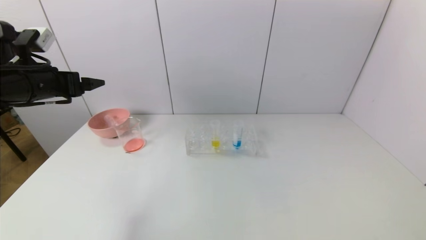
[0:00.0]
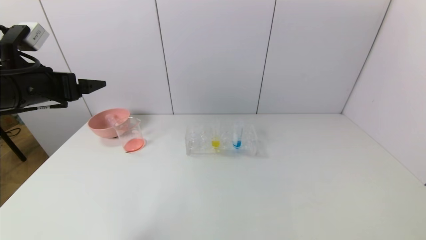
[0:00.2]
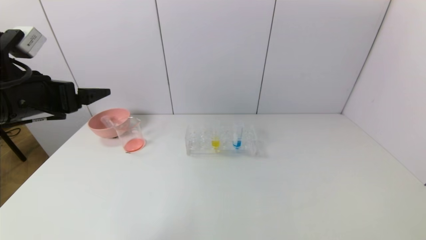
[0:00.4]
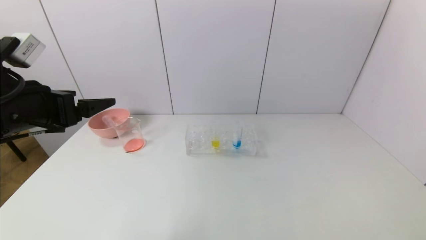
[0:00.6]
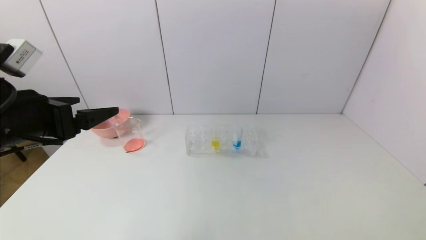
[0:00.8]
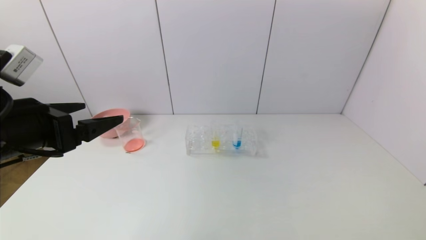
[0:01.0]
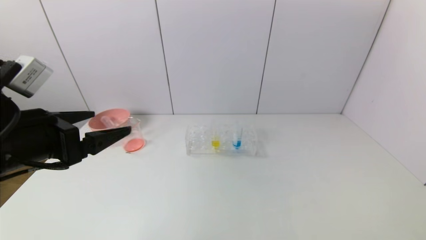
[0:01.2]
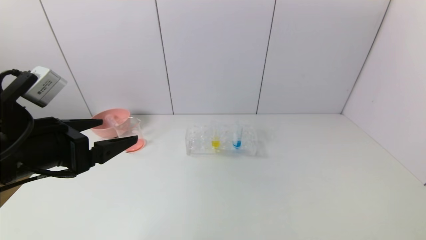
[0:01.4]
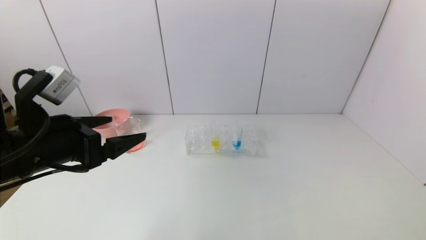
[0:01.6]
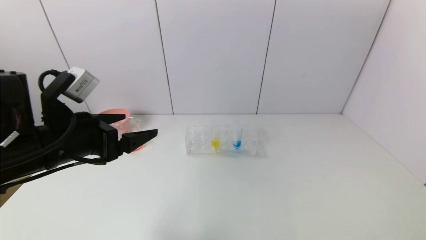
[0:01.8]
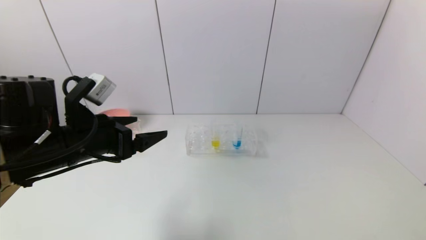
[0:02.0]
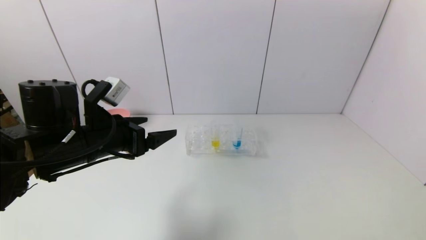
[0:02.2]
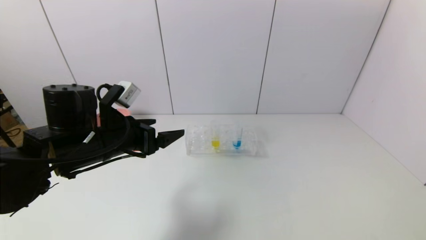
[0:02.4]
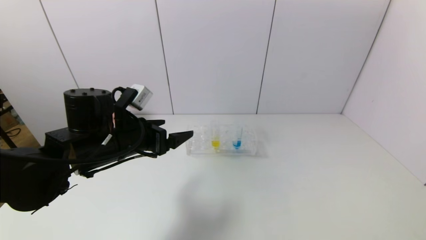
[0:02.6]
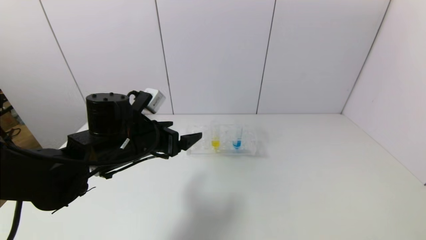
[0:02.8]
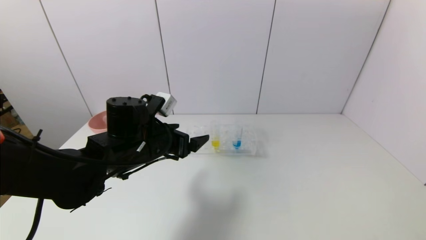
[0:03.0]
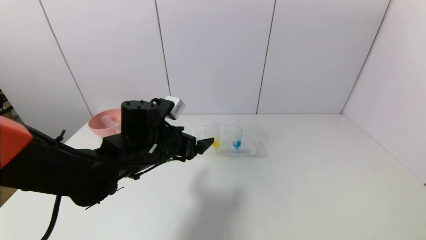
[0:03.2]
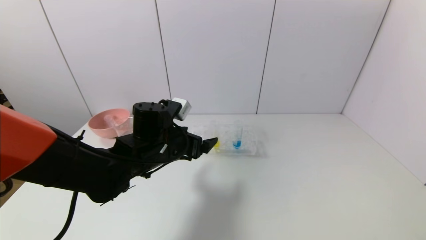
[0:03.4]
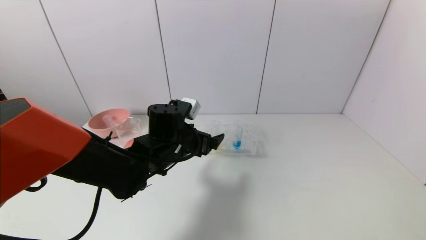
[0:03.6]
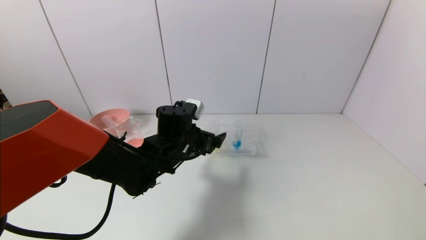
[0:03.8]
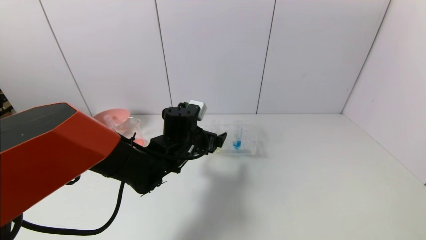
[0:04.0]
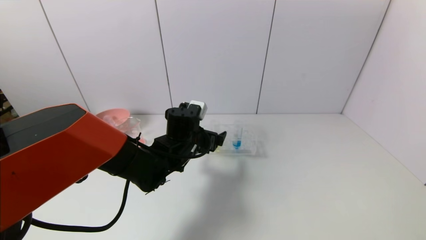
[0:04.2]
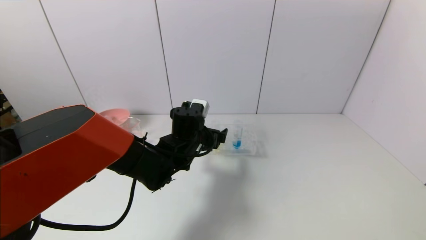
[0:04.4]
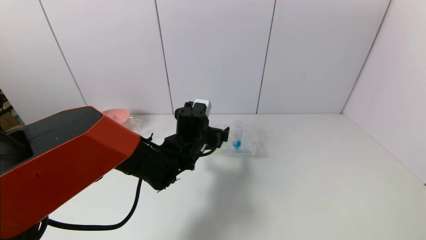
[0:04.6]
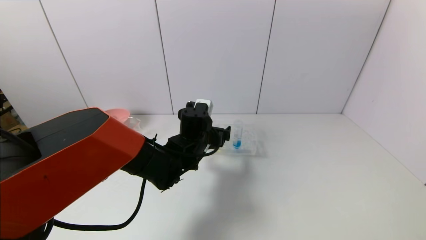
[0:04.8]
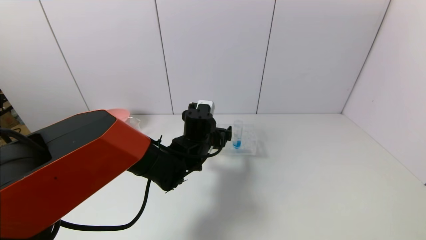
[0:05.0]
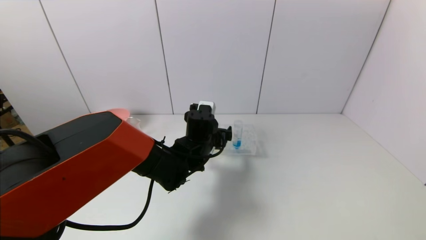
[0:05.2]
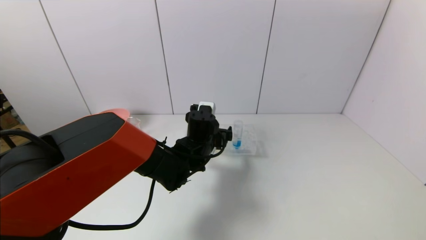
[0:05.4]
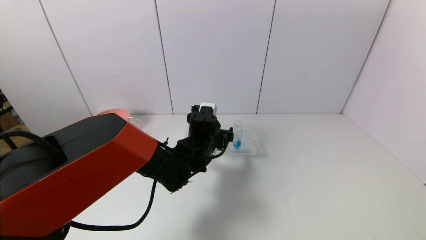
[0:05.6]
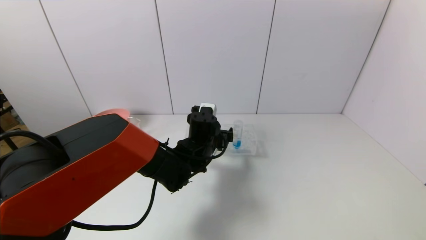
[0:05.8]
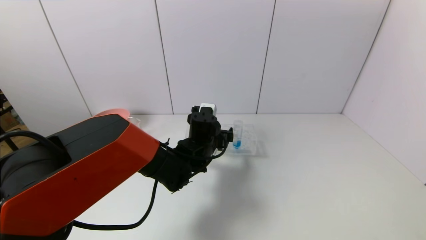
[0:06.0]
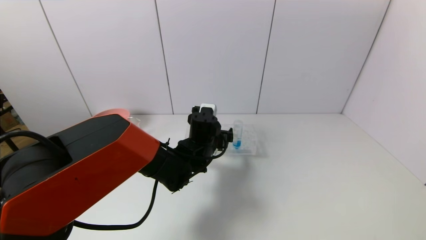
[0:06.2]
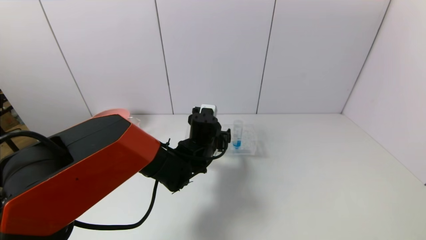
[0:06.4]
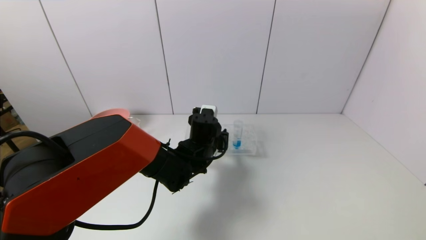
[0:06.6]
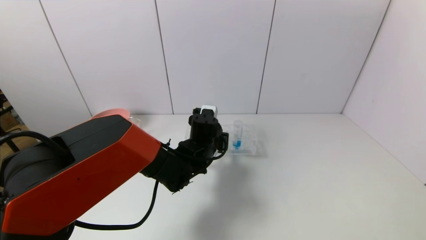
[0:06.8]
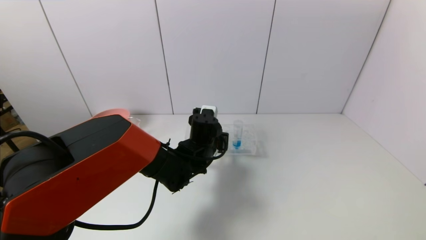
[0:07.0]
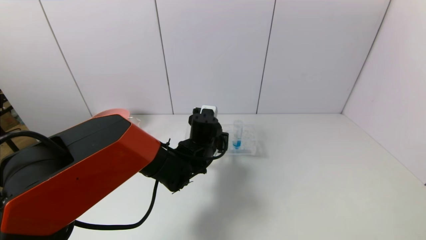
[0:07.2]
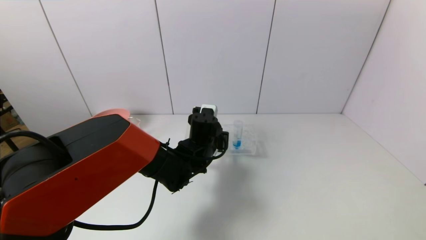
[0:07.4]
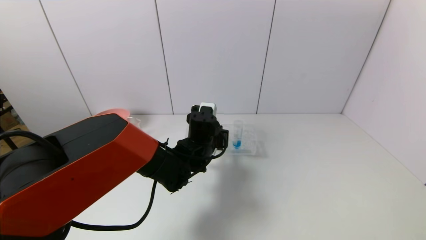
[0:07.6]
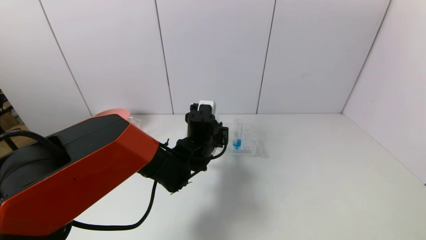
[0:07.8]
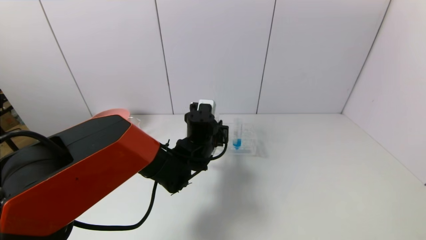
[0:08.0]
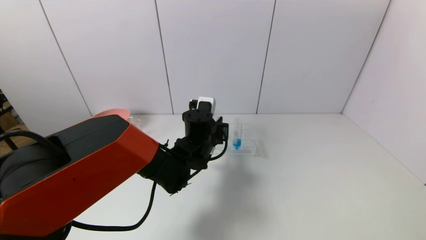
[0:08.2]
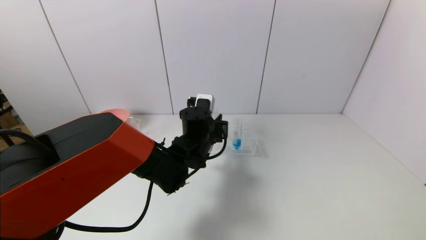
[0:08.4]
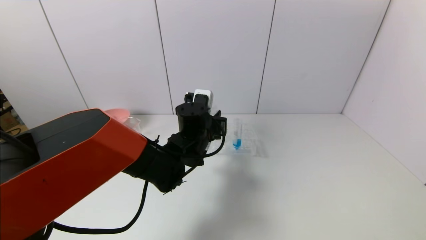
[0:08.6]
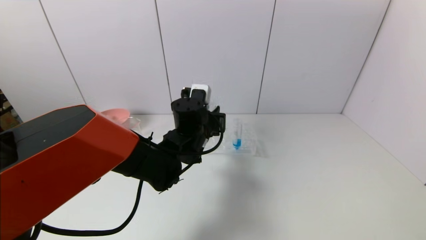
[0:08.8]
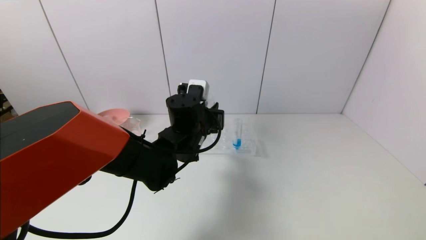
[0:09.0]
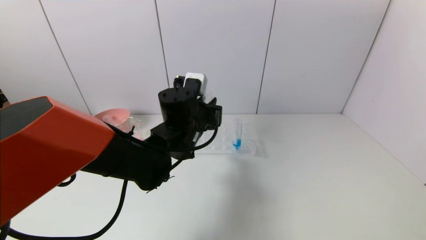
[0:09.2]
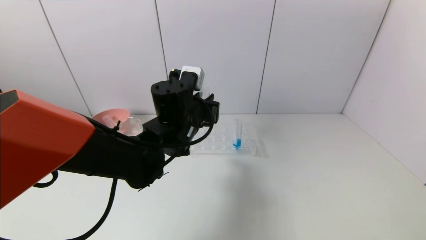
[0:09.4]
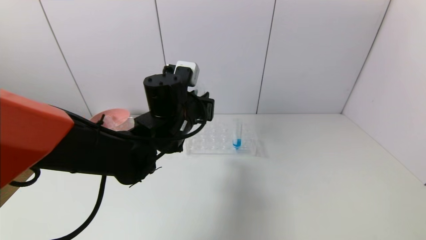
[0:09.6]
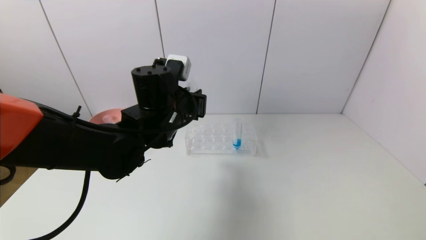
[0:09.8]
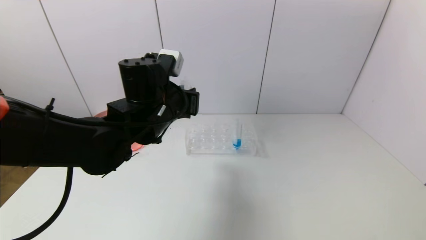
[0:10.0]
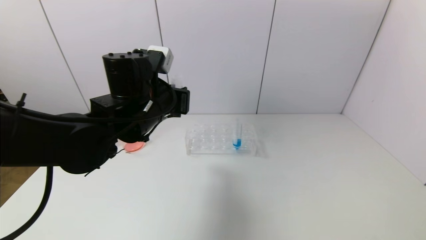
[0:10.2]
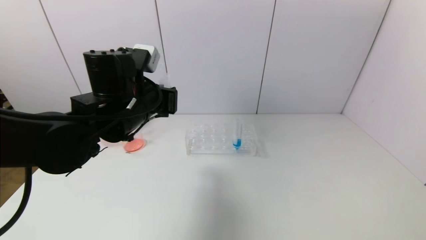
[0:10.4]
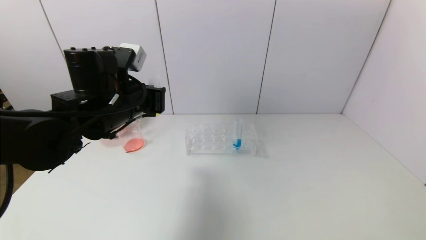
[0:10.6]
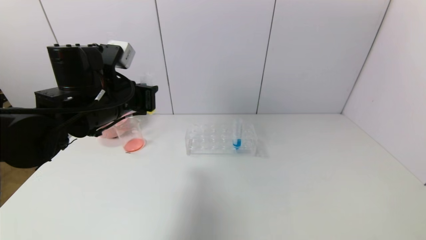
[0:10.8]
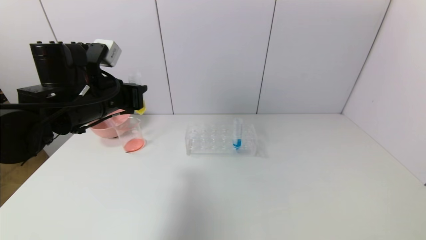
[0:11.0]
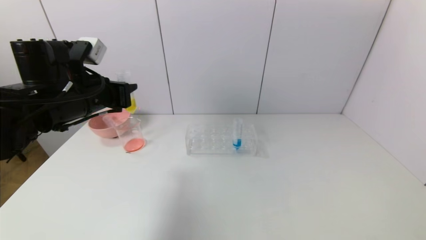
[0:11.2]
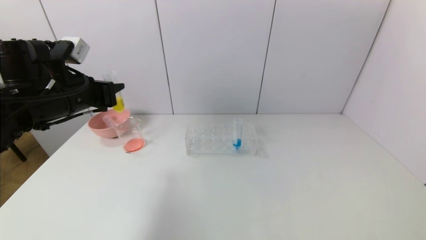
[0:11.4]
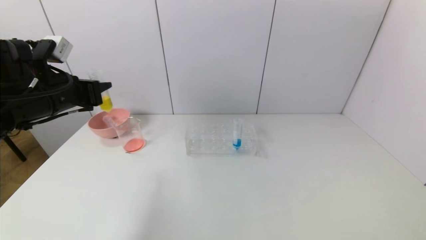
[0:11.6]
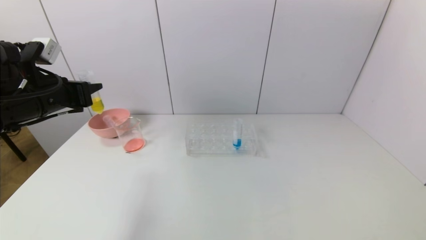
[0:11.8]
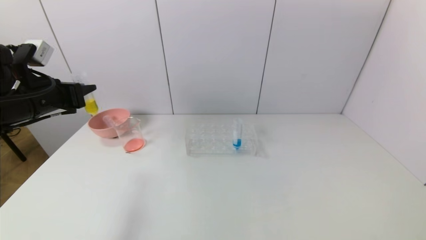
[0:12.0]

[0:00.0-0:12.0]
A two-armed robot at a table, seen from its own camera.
Task of the whole recording: pick up the test tube with yellow pigment and the test tube with red pigment by grippers and pour them into the beaker.
Step, 0:00.0 to 0:07.2: Grasp the yellow reagent with the left gripper.
0:00.0 to 0:01.6: The left gripper is displaced backward and to the right by approximately 15 cm.
0:01.6 to 0:03.0: The left gripper moves to the right, forward and downward, approximately 15 cm.
0:03.0 to 0:04.4: The left gripper heads to the right and forward, covering about 10 cm.
0:04.4 to 0:06.0: There are only small adjustments of the grippers.
0:06.0 to 0:07.6: The left gripper closes up.
0:07.6 to 0:09.0: The left gripper goes approximately 5 cm upward.
0:09.0 to 0:10.4: The left gripper moves to the left and upward, about 15 cm.
0:10.4 to 0:12.0: The left gripper travels to the left by some 20 cm.

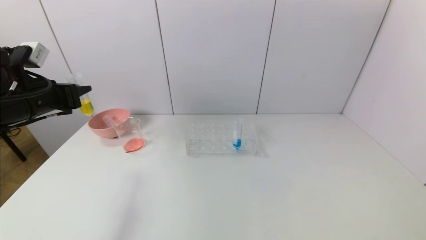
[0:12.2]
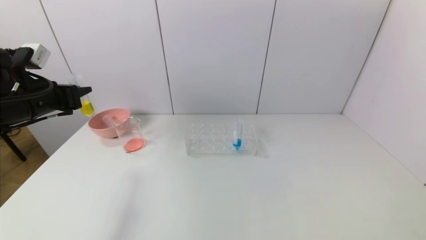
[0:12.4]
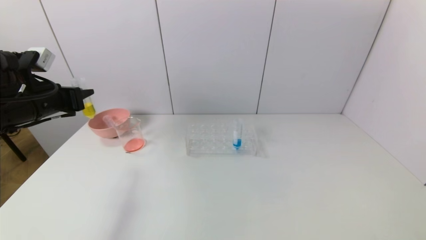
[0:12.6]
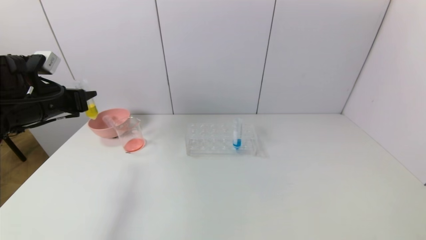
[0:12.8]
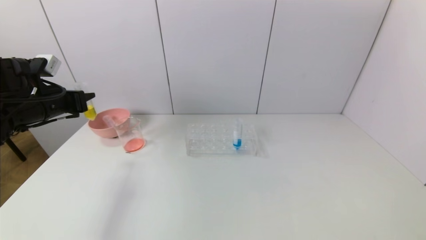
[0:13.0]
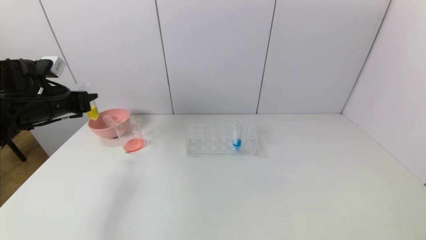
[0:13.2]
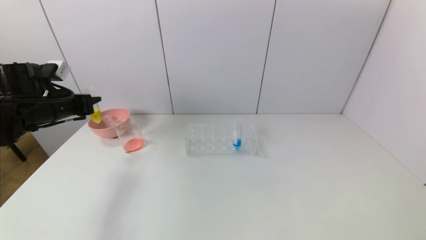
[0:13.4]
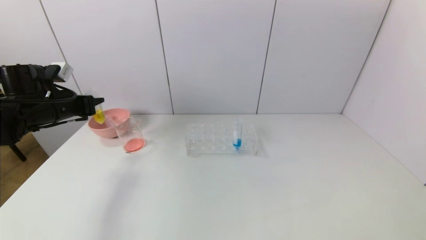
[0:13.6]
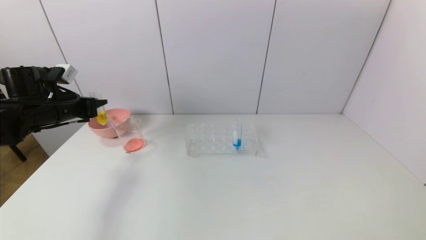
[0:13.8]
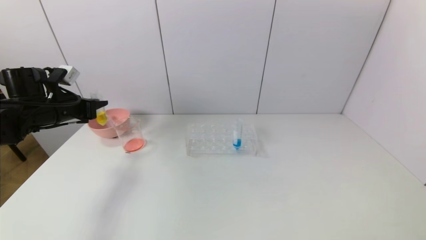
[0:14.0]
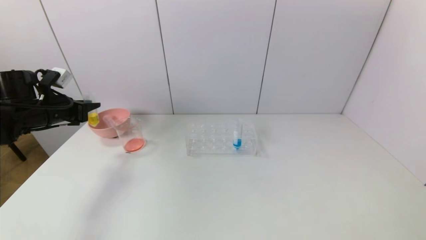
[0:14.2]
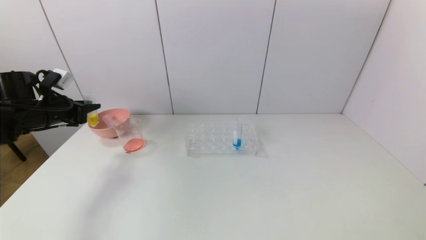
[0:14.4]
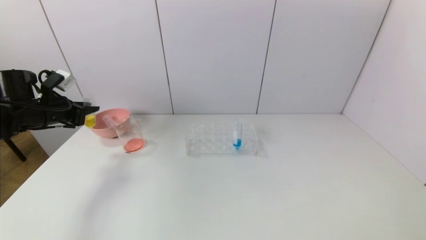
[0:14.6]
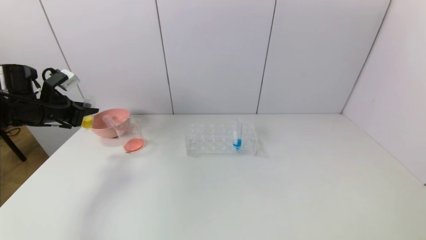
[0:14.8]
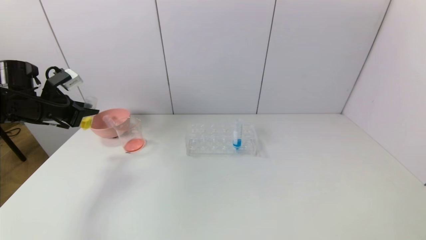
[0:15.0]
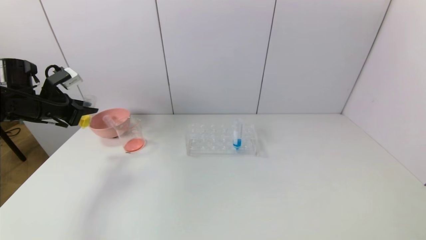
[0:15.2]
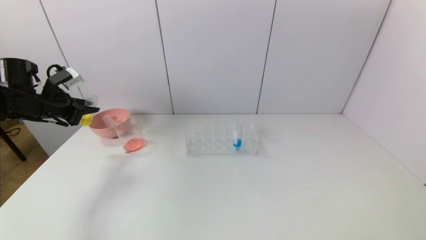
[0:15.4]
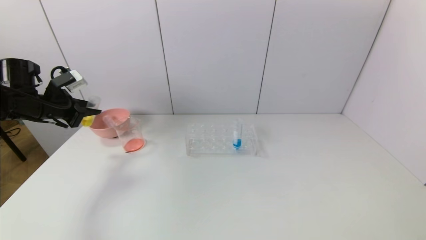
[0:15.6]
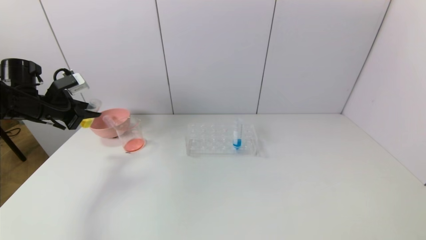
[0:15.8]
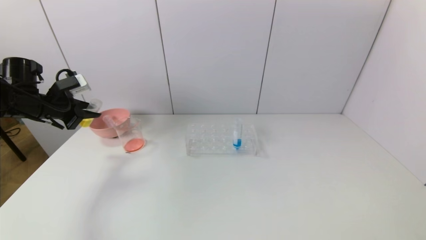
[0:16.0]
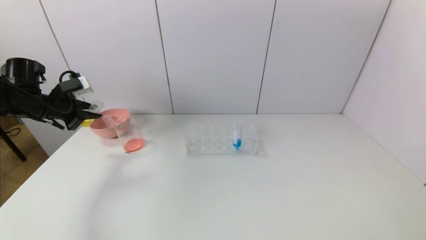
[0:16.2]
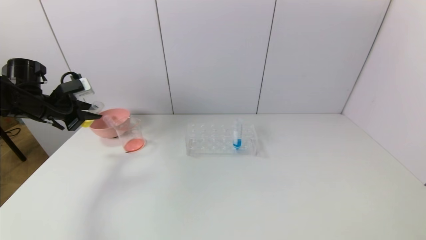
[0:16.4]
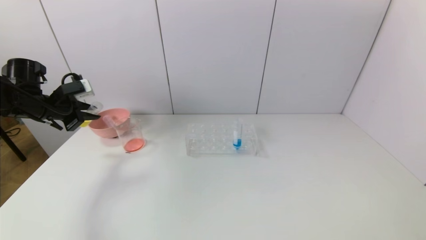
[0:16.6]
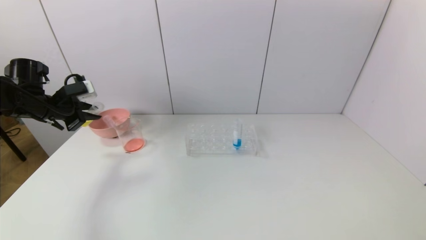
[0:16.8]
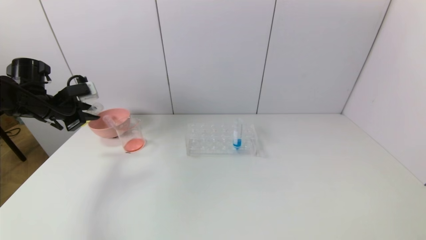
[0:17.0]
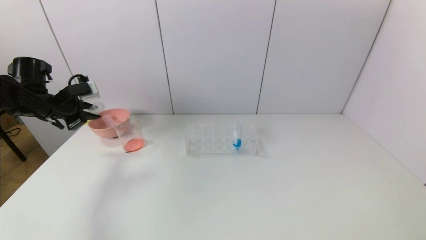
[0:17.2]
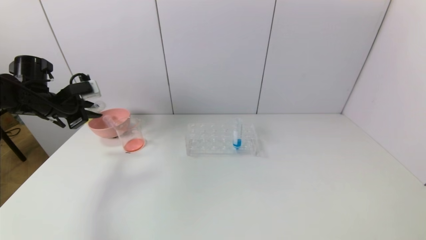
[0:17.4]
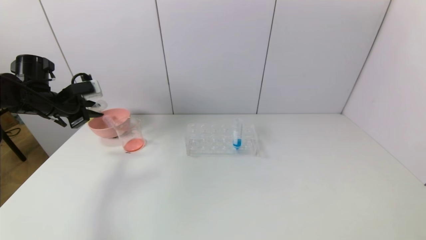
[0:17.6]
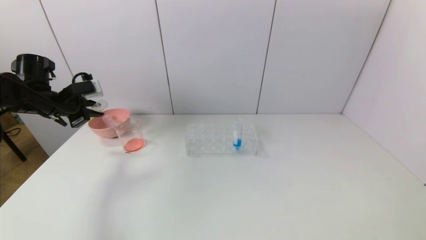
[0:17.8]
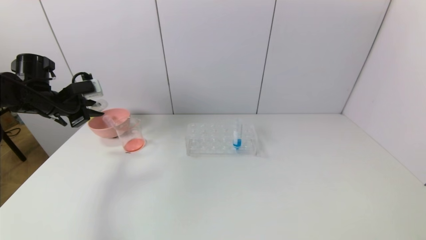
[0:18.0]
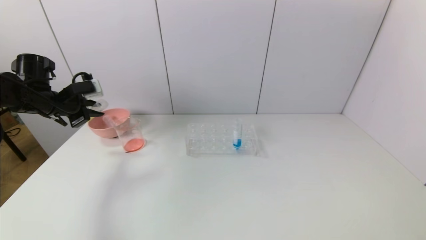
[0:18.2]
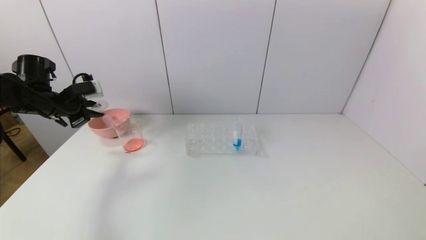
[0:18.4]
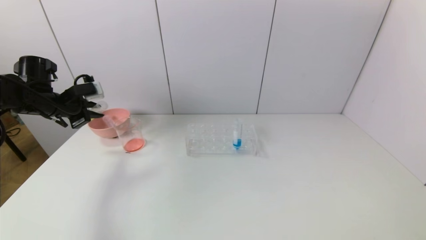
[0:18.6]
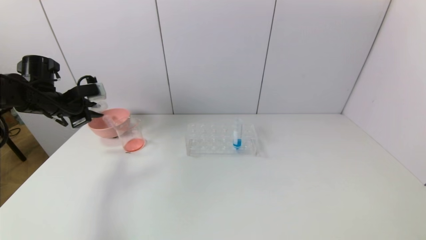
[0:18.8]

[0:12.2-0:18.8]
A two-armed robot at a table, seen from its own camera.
Task of the whole recording: pick up the test tube with yellow pigment and the test tube with red pigment by grippers and pour them into the beaker.
0:12.2 to 0:13.8: The left gripper moves forward, roughly 5 cm.
0:17.2 to 0:18.8: There are only small adjustments of the grippers.
